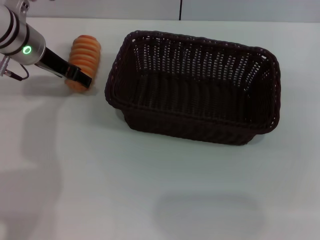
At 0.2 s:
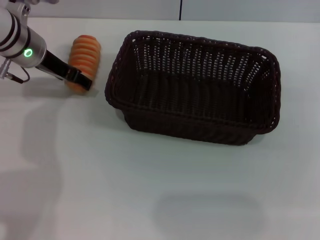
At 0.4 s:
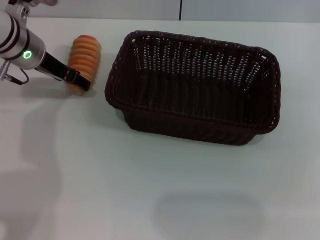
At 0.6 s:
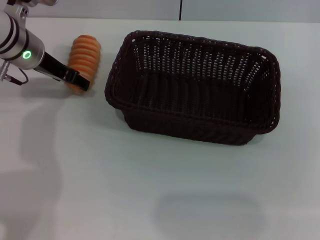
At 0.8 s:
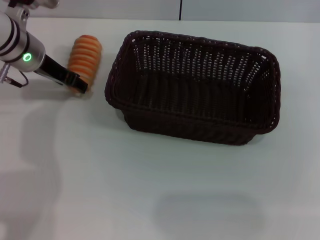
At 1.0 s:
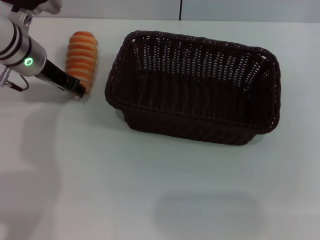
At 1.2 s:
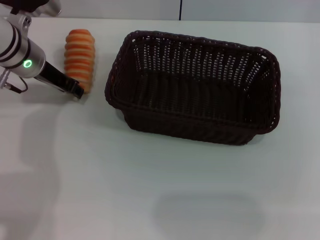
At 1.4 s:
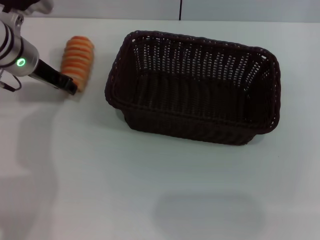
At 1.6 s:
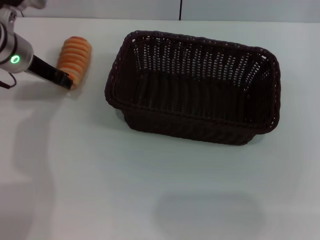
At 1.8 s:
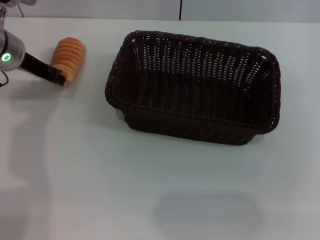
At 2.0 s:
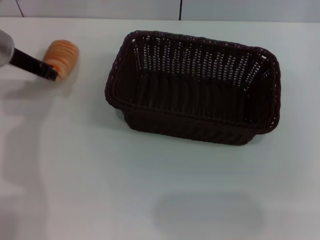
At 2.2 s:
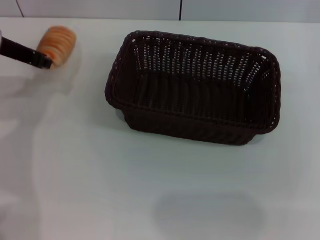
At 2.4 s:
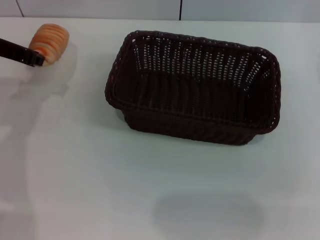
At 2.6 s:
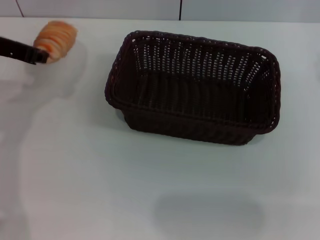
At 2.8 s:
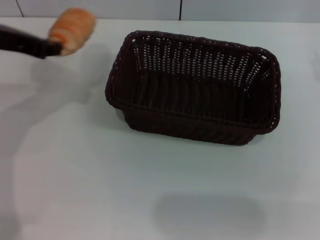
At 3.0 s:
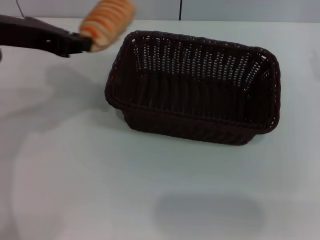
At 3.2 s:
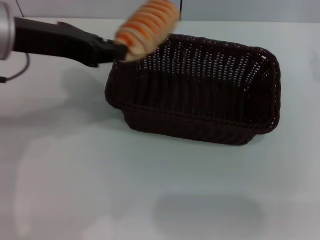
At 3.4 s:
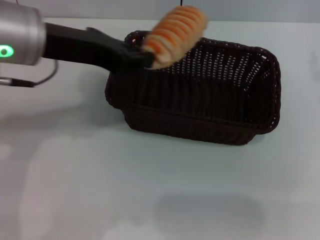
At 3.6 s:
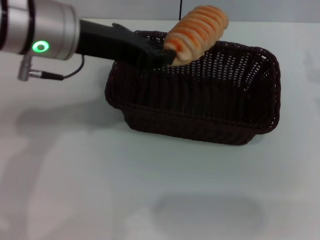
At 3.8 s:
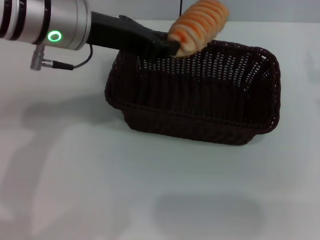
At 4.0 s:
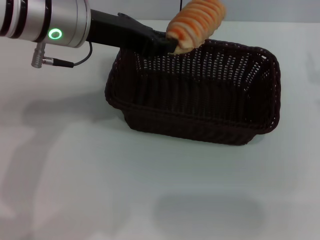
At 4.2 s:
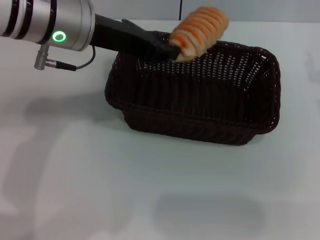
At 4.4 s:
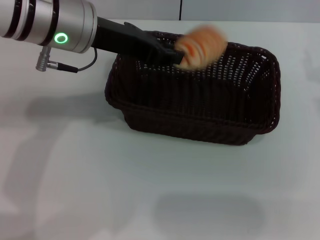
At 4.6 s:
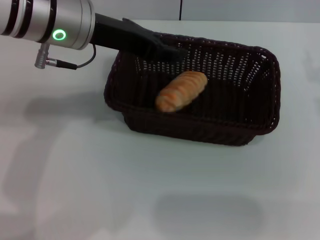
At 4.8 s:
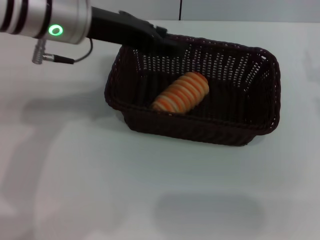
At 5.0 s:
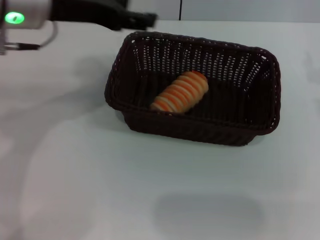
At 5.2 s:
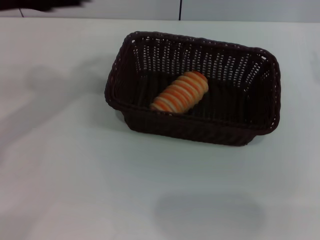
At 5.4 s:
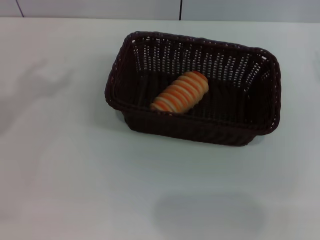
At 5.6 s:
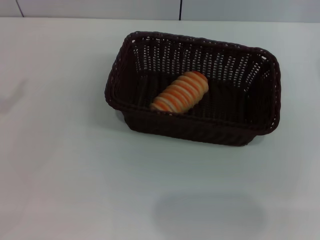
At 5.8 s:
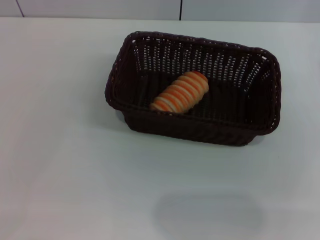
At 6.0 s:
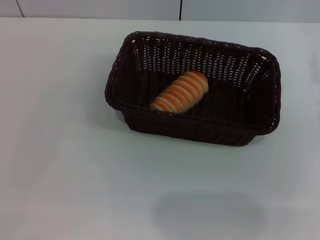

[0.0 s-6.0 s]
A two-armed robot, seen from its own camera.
Step, 0.0 to 2.6 s: Pick up the long bread with the left gripper.
Step, 2.8 to 5.8 s: Place the long bread into the dark basket with the left gripper.
0.0 to 1.6 s: The left gripper closes.
1.6 to 3.0 s: The left gripper moves upward and backward, about 15 cm, and closes its fingers.
3.0 to 4.4 s: The left gripper heads to the right, covering some 10 cm.
4.4 to 6.0 s: The left gripper goes roughly 40 cm to the left and backward, and opens.
